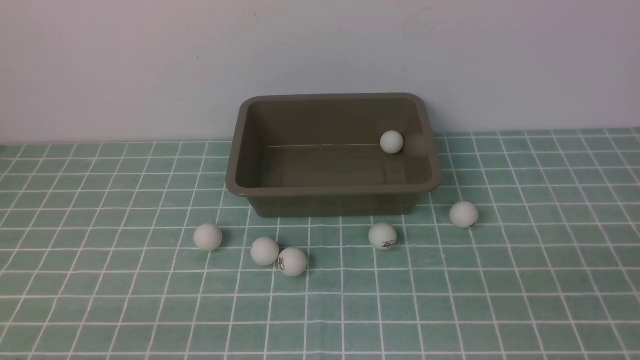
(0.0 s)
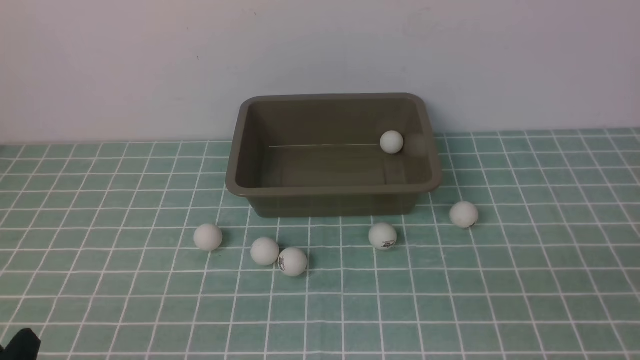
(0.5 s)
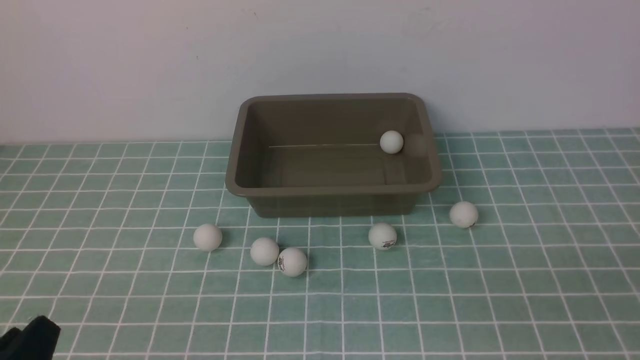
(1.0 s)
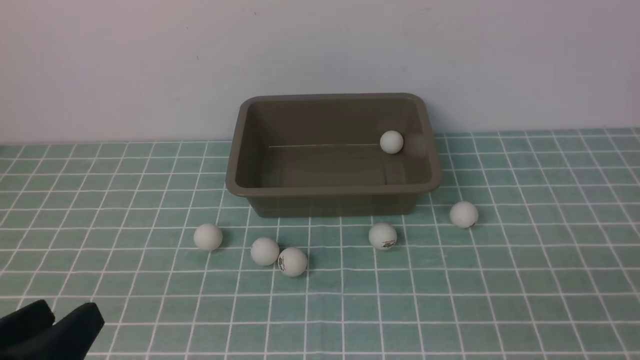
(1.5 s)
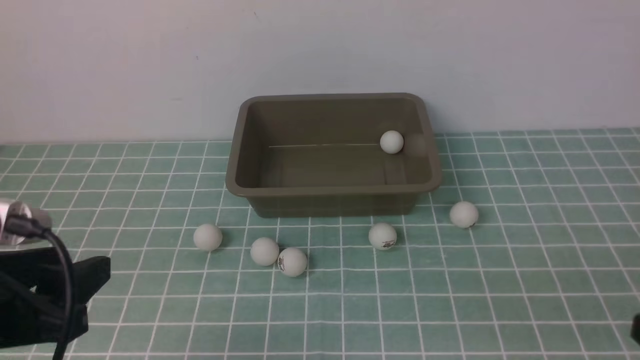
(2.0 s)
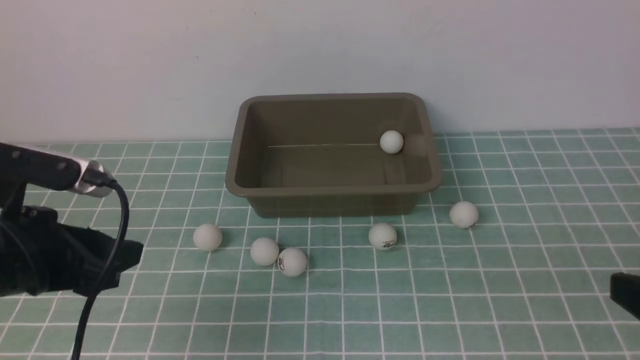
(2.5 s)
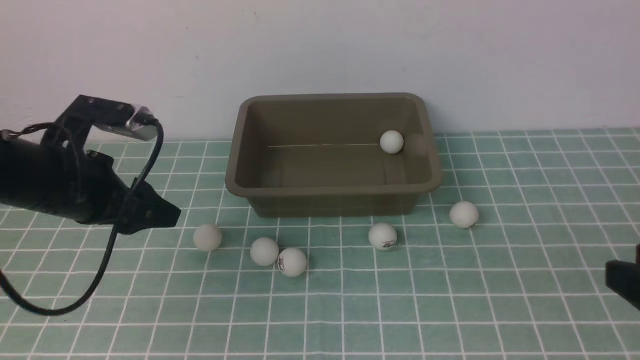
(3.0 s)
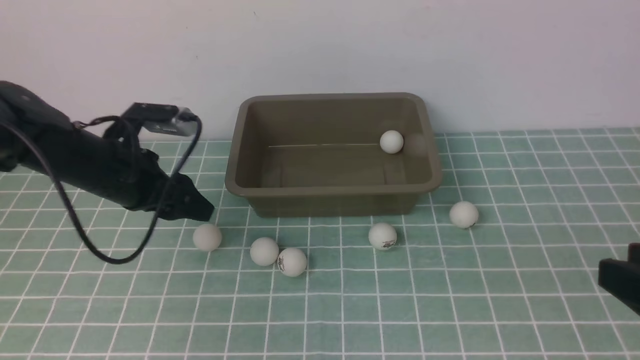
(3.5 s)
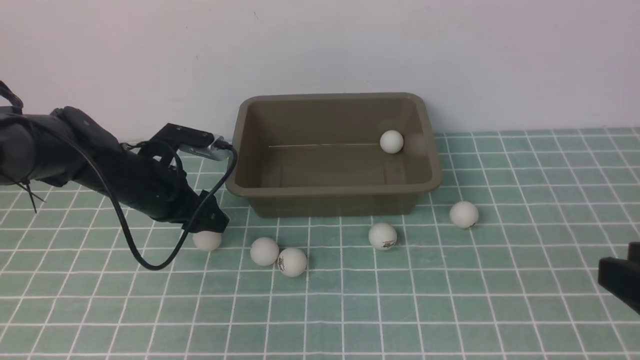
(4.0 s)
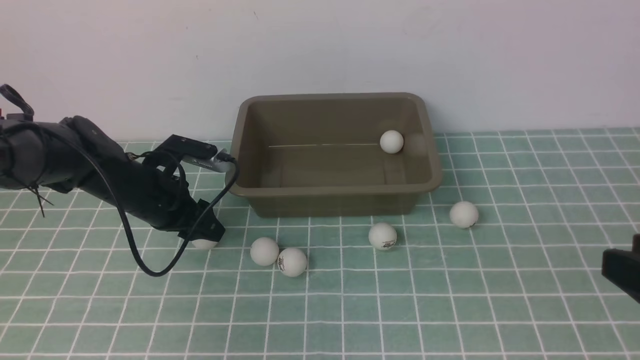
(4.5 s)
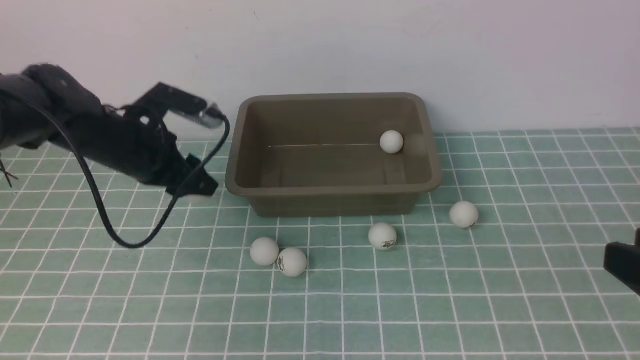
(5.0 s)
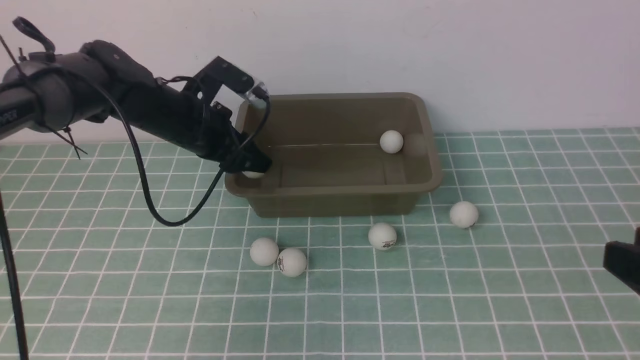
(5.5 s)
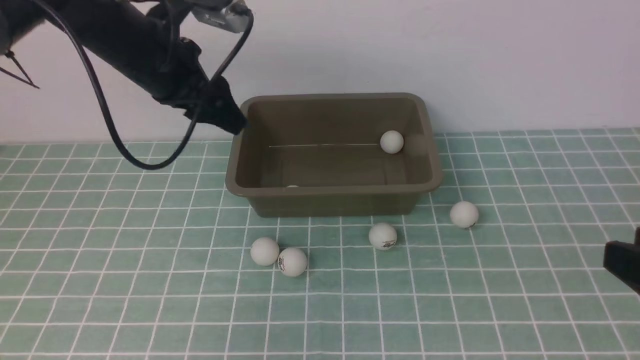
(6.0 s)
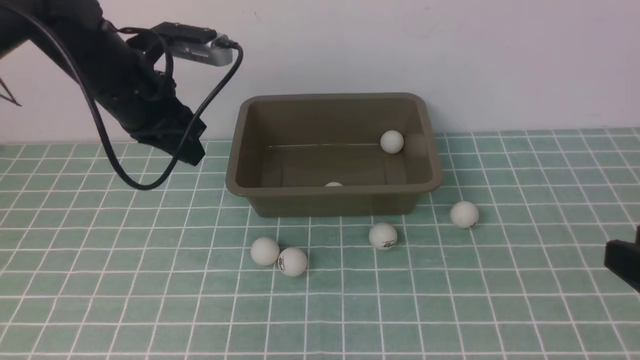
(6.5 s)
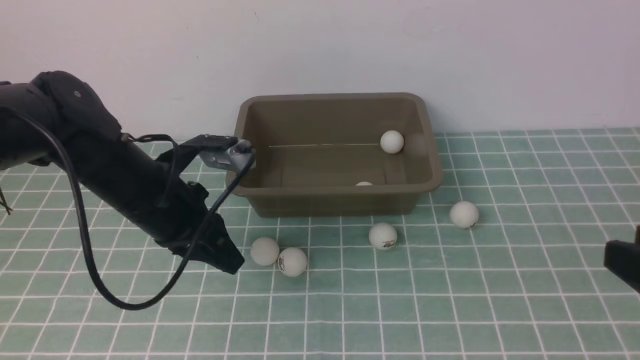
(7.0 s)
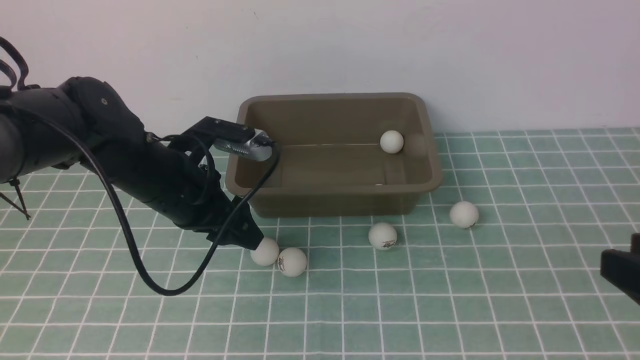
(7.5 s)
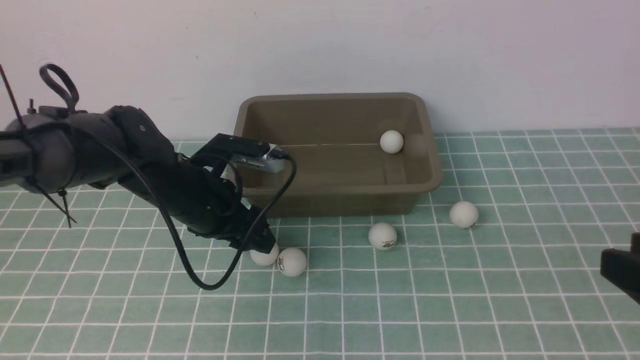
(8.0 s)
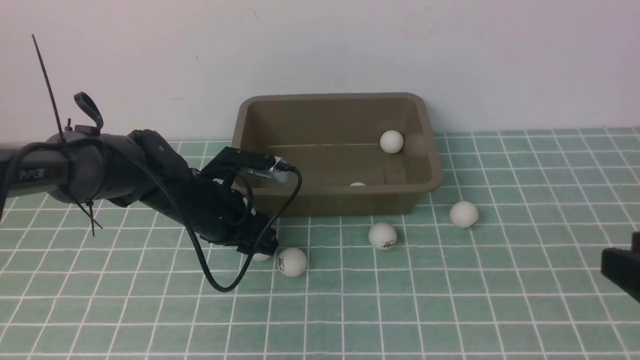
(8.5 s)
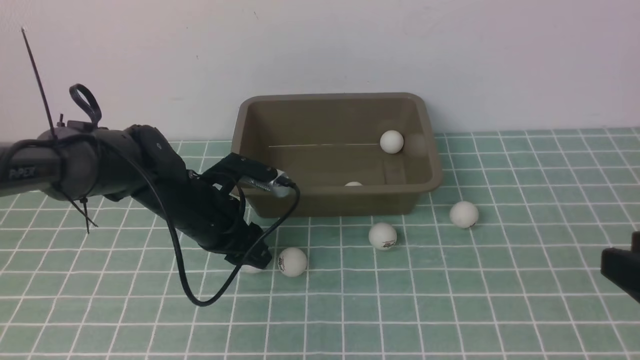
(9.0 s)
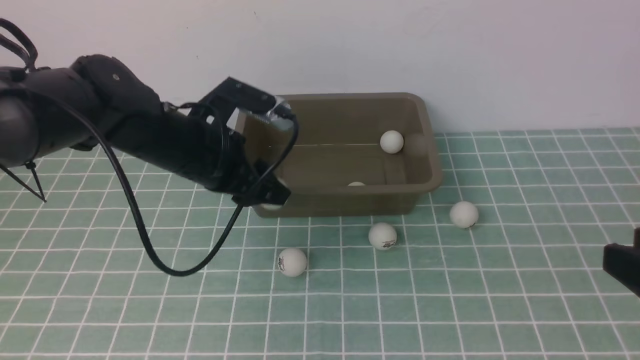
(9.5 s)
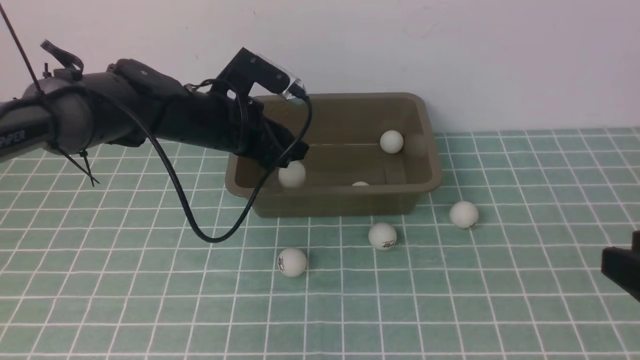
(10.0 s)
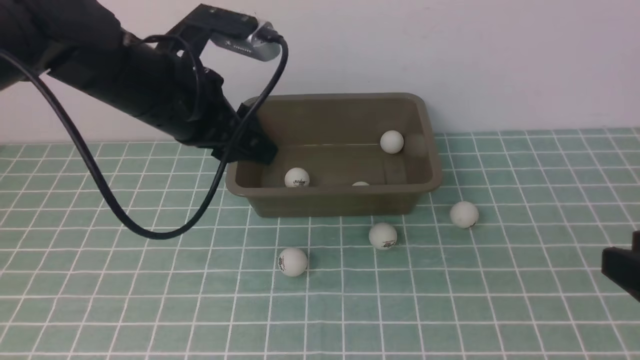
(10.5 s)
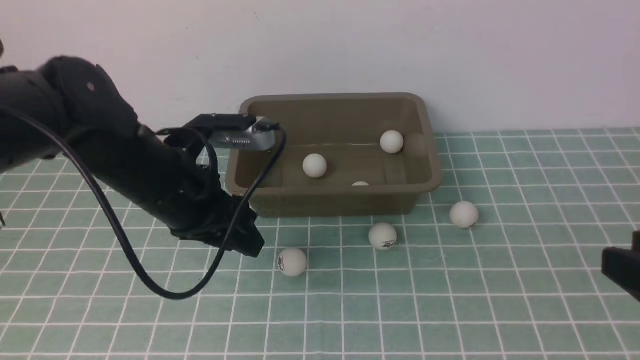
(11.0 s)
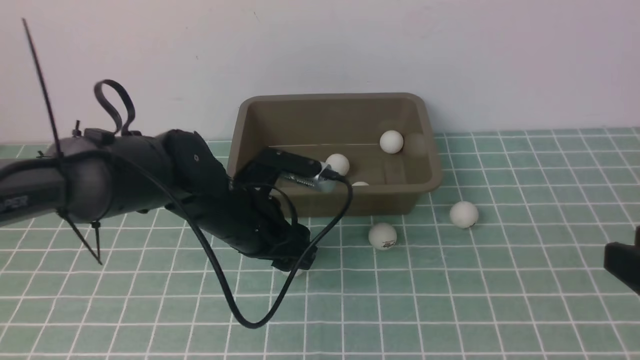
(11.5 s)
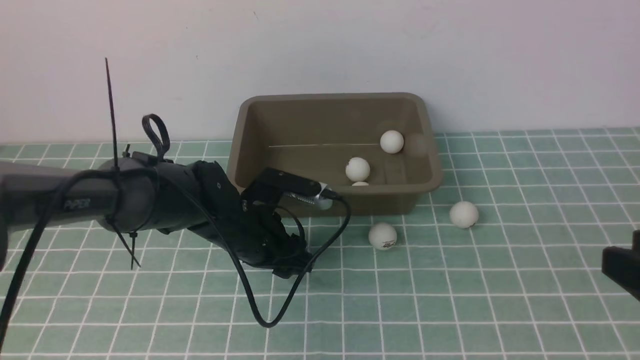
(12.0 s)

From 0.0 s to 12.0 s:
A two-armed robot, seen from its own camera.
Step, from 0.0 s to 5.0 s: use the left arm to clamp the table tennis ball closest to it.
Step, from 6.0 s to 9.0 s: use the left arm to clamp the table tennis ball closest to it.
From 0.0 s to 2.0 s: The left gripper shifts approximately 15 cm upward and forward, and opens its fingers.
From 2.0 s to 4.0 s: The right gripper moves some 5 cm. Meanwhile the left gripper shifts some 30 cm forward and downward.
From 4.0 s to 6.0 s: The left gripper shifts some 15 cm upward.
From 6.0 s to 8.0 s: The left gripper shifts some 15 cm downward and backward, and closes and opens again.
From 8.0 s to 10.0 s: The left gripper goes about 10 cm upward and forward.
From 10.0 s to 12.0 s: The left gripper heads backward and downward, covering roughly 10 cm.

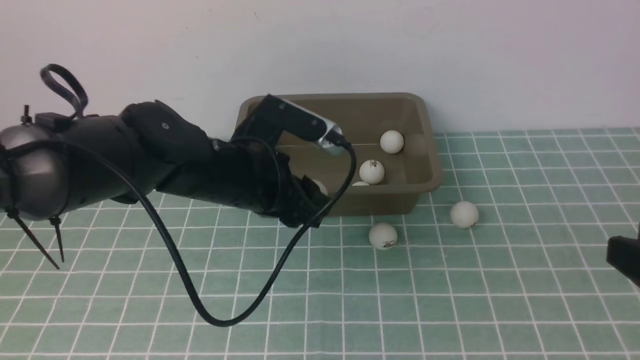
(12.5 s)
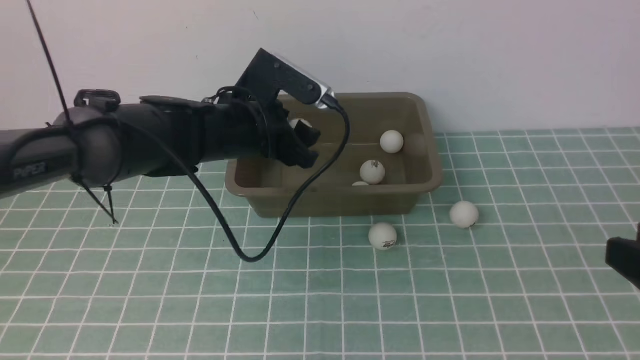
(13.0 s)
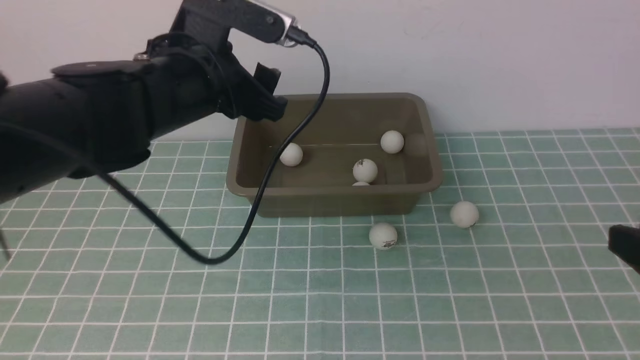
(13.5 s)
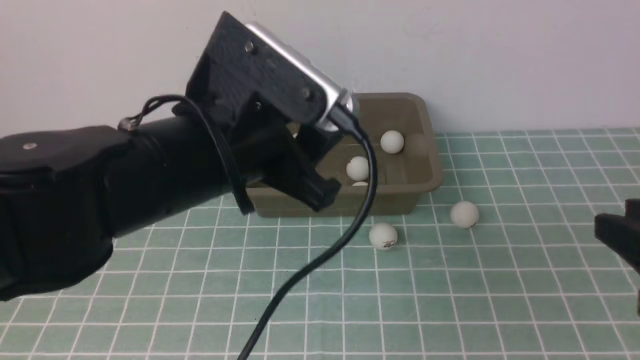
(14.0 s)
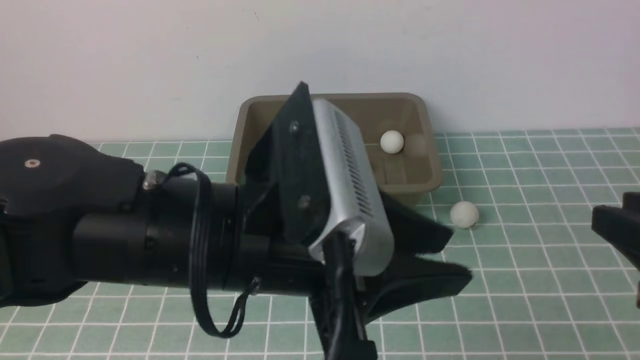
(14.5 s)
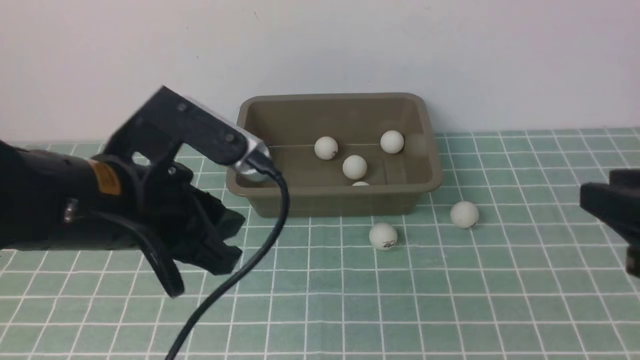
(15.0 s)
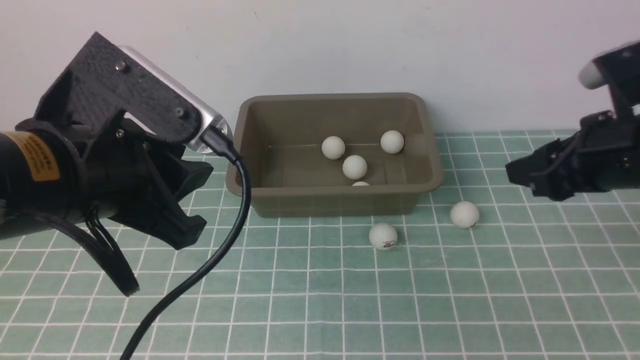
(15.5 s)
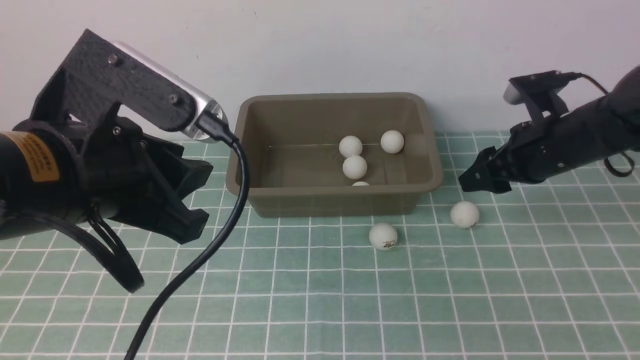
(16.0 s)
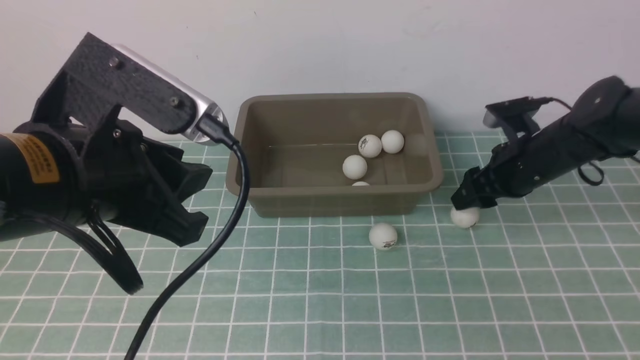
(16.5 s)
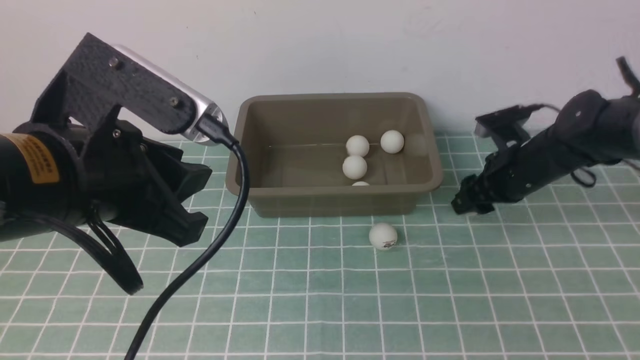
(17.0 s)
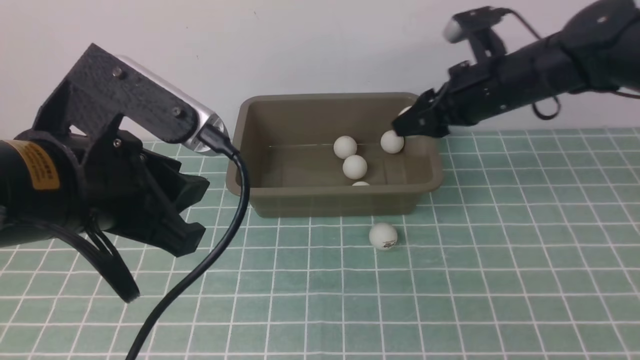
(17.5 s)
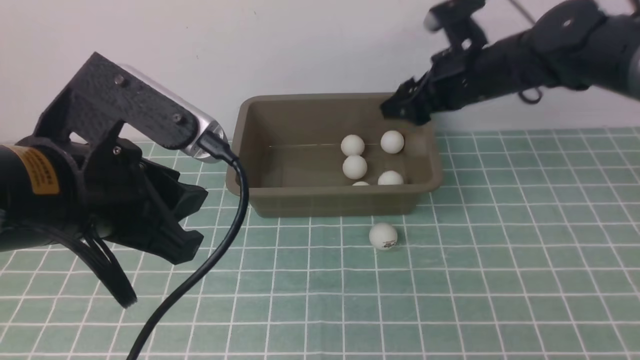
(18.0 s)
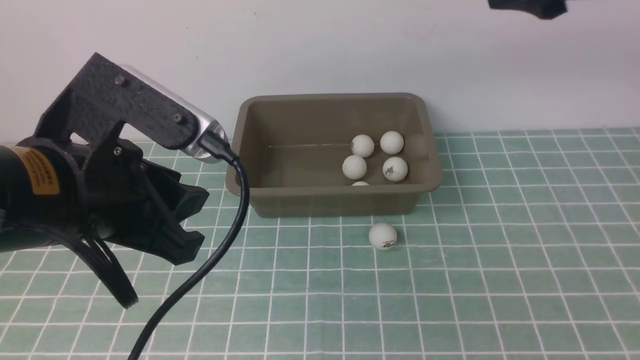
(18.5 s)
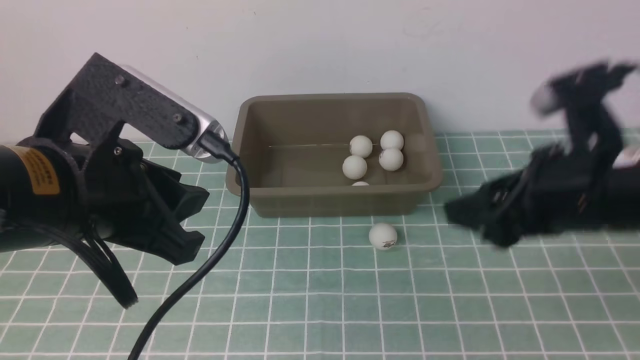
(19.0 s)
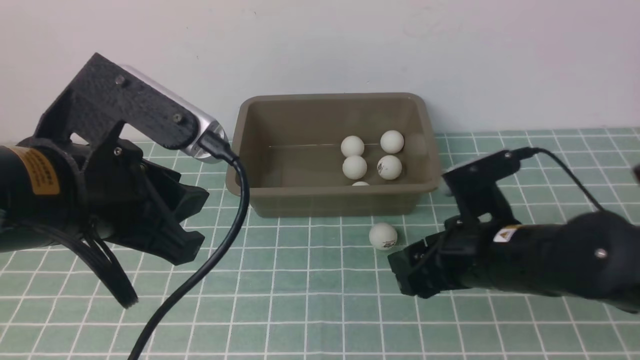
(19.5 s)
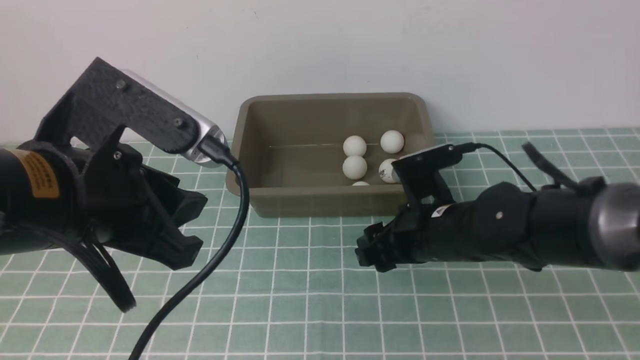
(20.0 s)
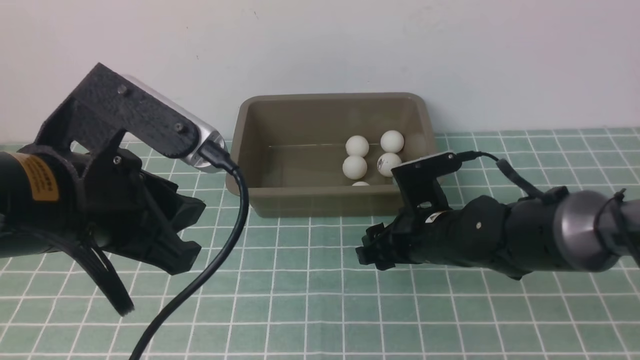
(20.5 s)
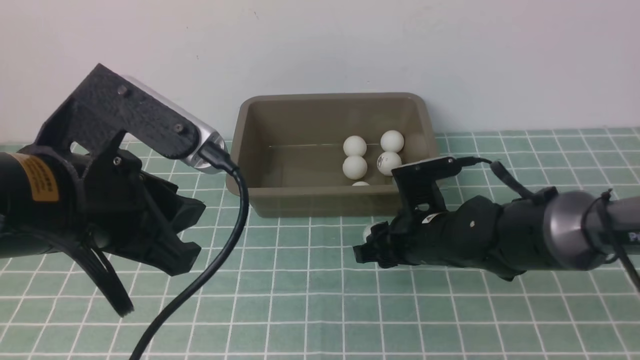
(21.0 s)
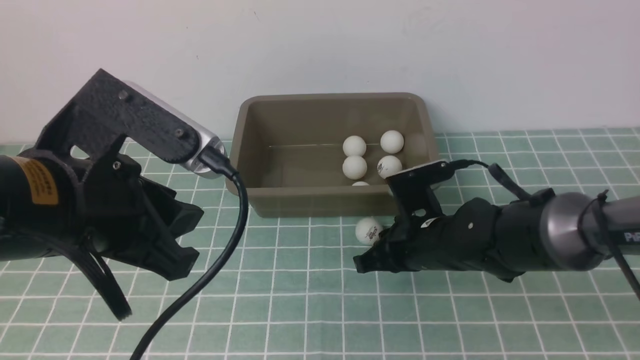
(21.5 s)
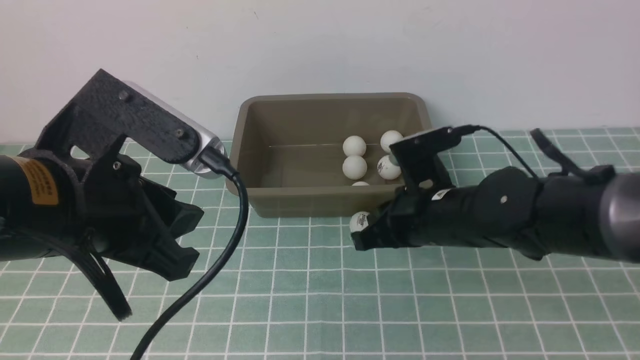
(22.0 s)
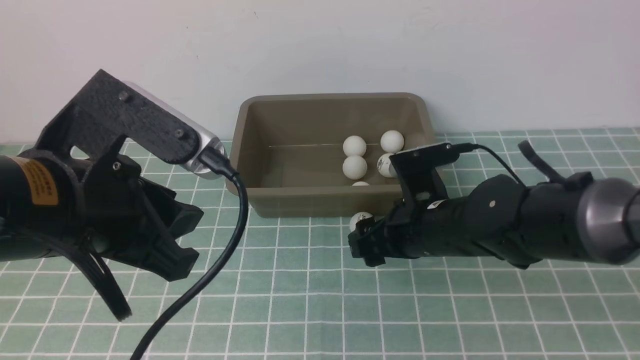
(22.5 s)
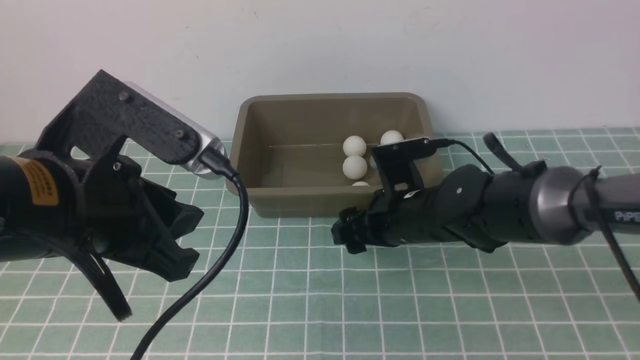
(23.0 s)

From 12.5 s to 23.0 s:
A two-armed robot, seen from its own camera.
Step, from 12.5 s to 13.0 s: use the left arm to put the table tennis ball into the box.
Step, from 13.5 s to 17.0 s: use the right arm to clamp the table tennis ball closest to it.
Step, from 17.5 s to 18.0 s: use the right arm to put the table tennis ball into the box.
From 12.5 s to 14.5 s: The right gripper goes approximately 5 cm forward; the left gripper heads backward and upward, covering about 15 cm, and closes its fingers.
From 14.5 s to 16.5 s: The right gripper is displaced forward and downward by some 30 cm, and opens its fingers.
From 16.5 s to 19.0 s: The right gripper travels backward and upward by about 20 cm, and opens.
From 19.0 s to 21.0 s: The right gripper moves downward, to the left and forward, about 20 cm, and closes.
From 21.0 s to 23.0 s: The right gripper opens its fingers.
